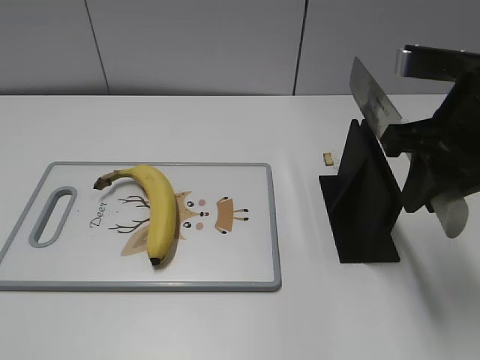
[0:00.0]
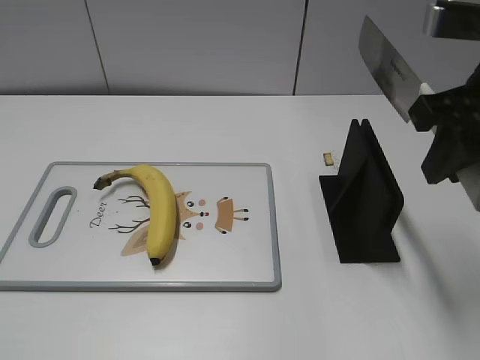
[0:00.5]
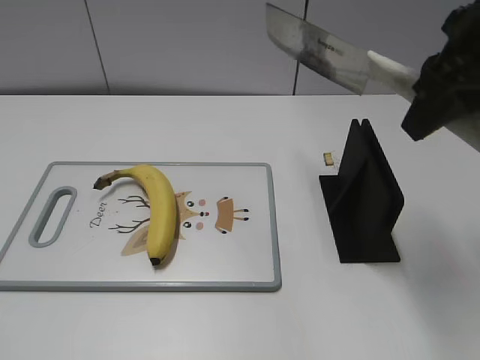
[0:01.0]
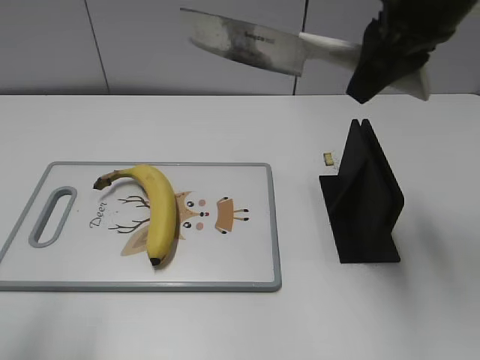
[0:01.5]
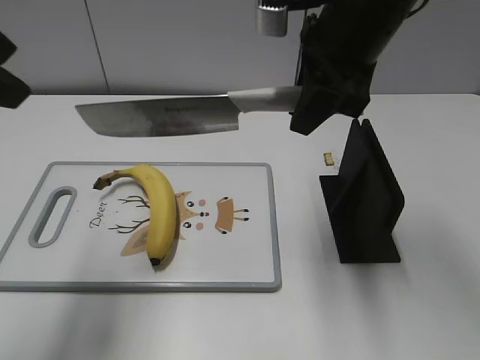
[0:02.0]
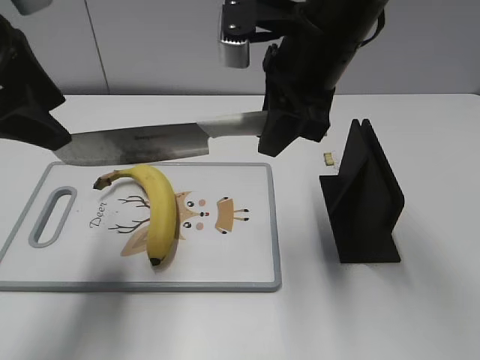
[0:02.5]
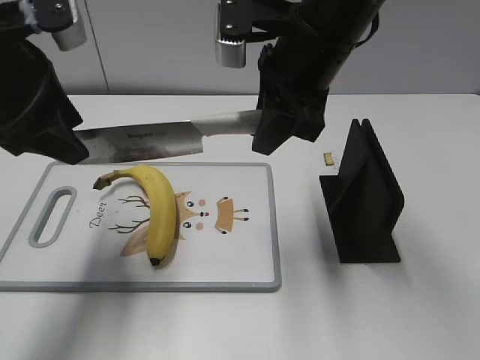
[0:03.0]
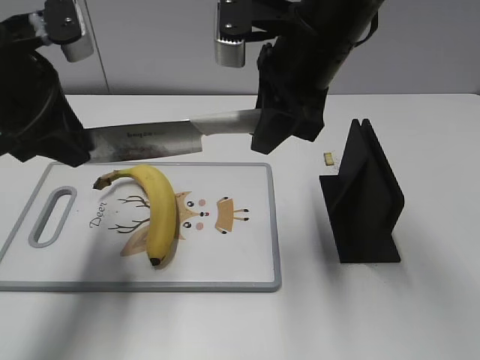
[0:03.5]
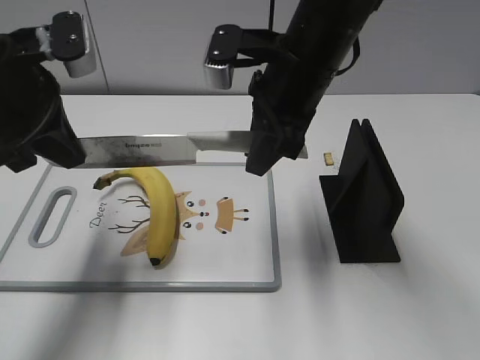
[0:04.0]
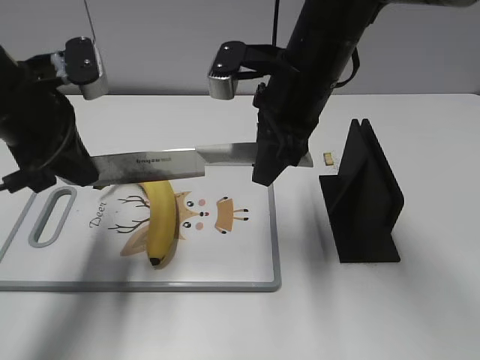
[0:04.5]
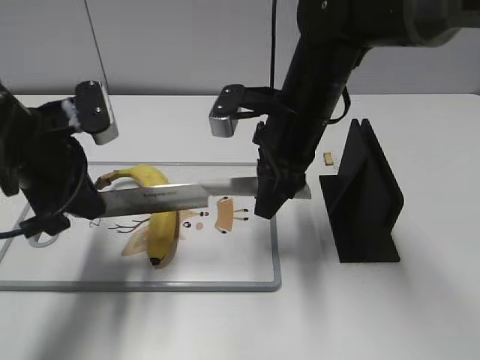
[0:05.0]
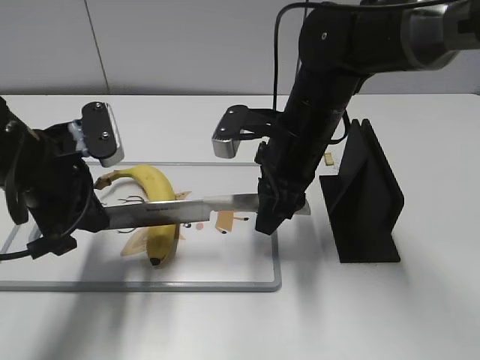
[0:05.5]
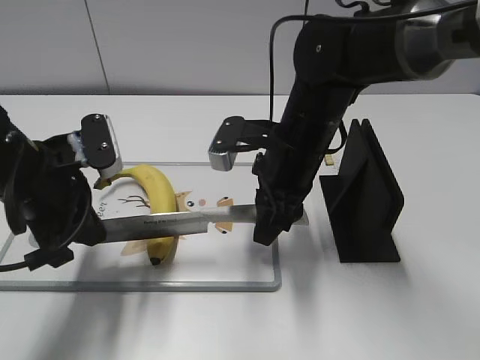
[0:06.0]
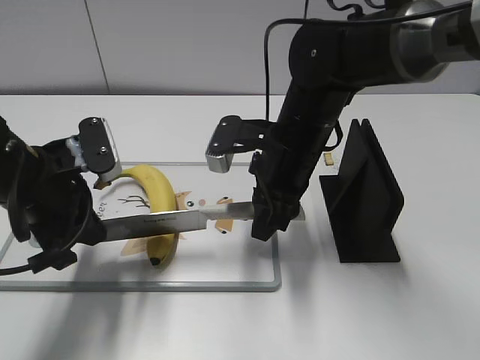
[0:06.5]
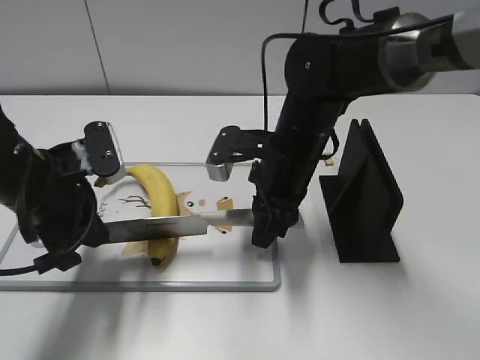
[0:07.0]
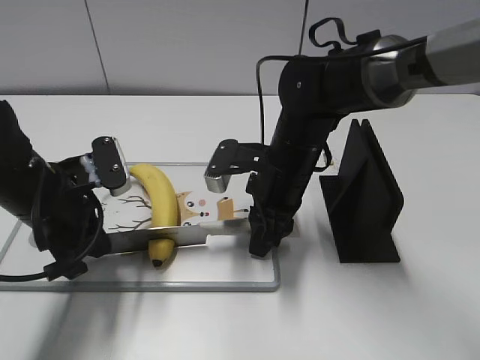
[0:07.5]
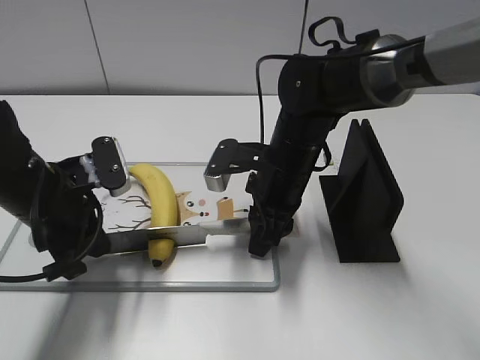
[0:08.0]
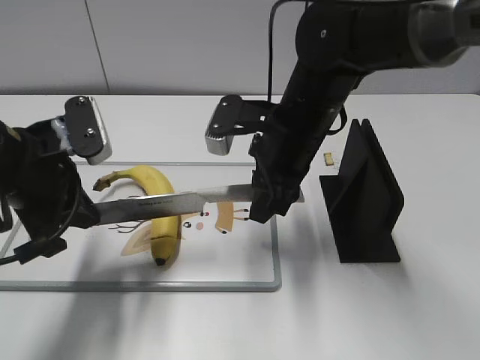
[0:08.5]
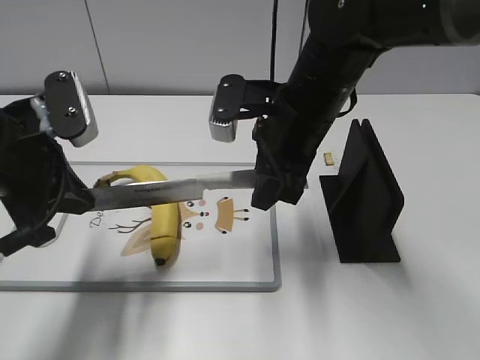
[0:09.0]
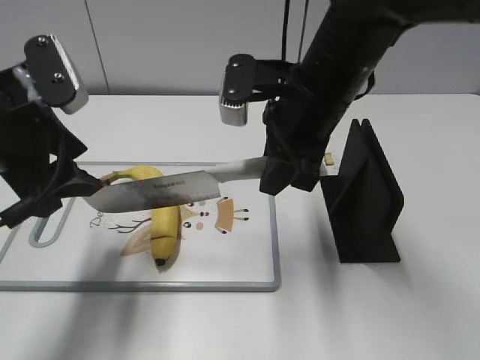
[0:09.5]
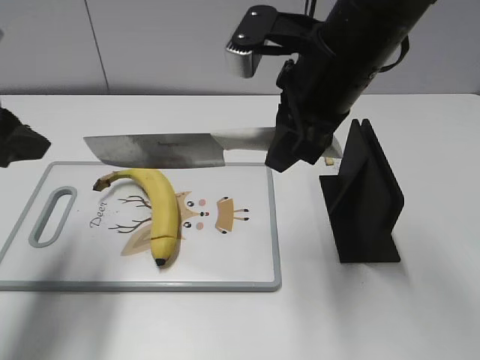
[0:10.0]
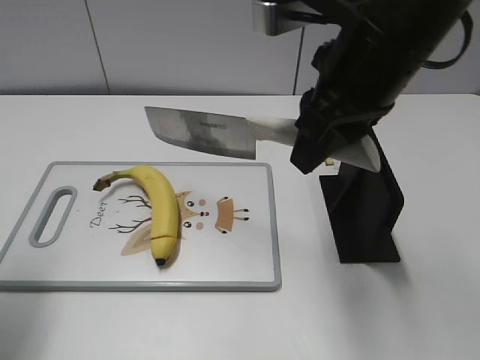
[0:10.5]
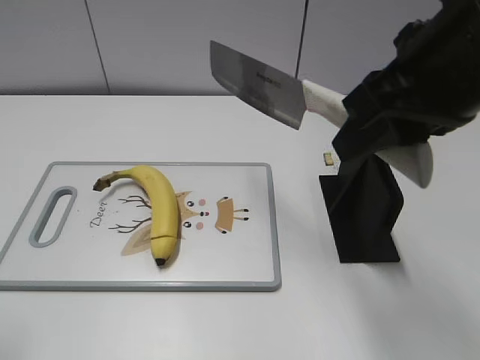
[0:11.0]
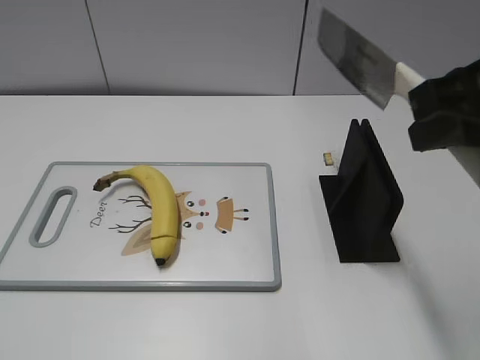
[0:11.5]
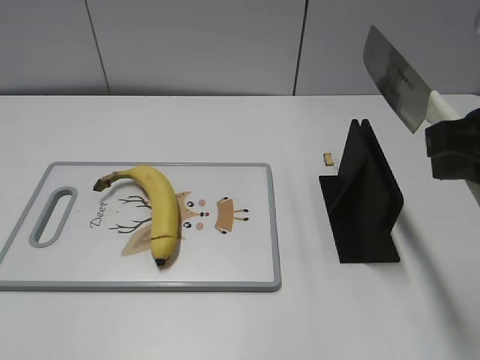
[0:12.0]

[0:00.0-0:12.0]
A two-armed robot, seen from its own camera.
Task of the whole recording: cut banana.
Step, 0:01.0 to 0:06.5: Hold the blade with your left hand.
Step, 0:07.0 to 0:11.0: Cut the banana with your right hand.
0:00.0 to 0:02.0: The right gripper goes roughly 10 cm to the left and forward. The left gripper shifts approximately 25 cm forward and upward.
0:02.0 to 0:04.0: The right gripper heads downward, covering roughly 5 cm. The left gripper moves downward and forward, approximately 10 cm, and closes up.
0:04.0 to 0:06.0: Both grippers move downward, about 10 cm.
0:08.0 to 0:10.0: The left gripper heads upward and to the left, covering roughly 15 cm, and opens, while the right gripper travels upward by some 15 cm.
0:10.0 to 0:12.0: The right gripper heads to the right and backward, covering about 15 cm, while the left gripper heads backward, covering roughly 25 cm.

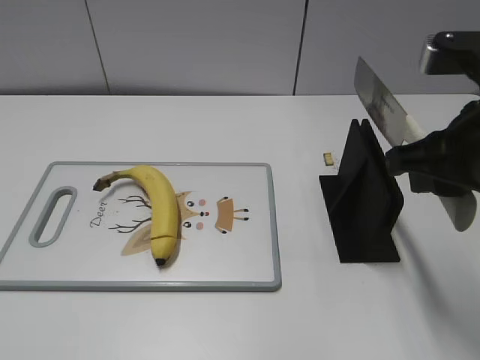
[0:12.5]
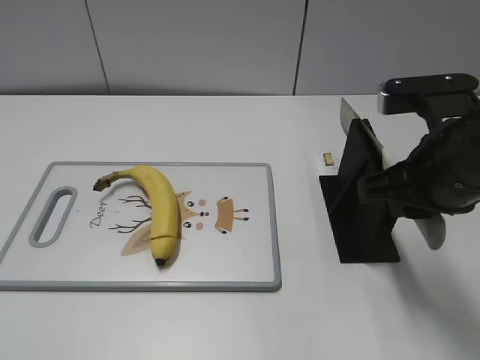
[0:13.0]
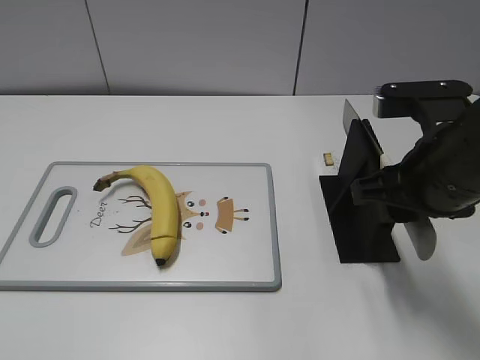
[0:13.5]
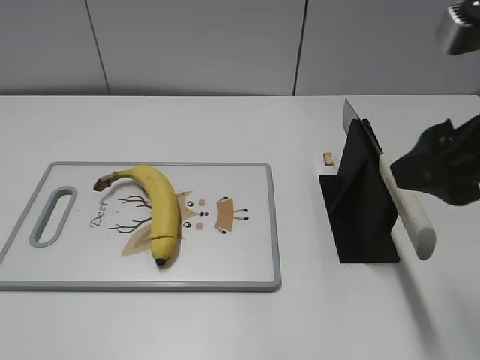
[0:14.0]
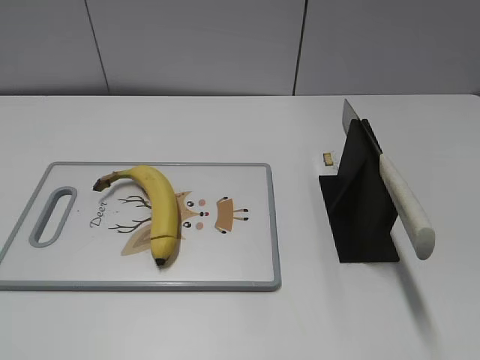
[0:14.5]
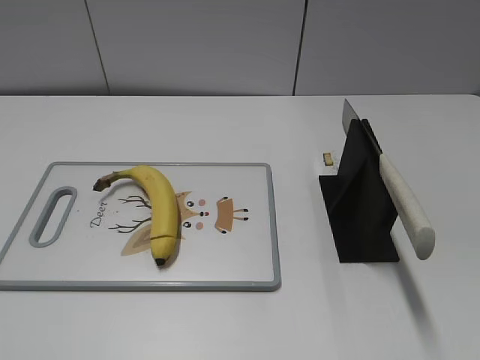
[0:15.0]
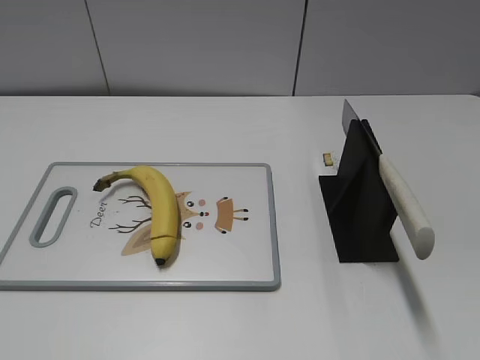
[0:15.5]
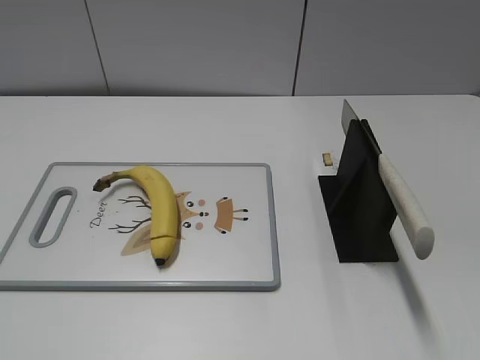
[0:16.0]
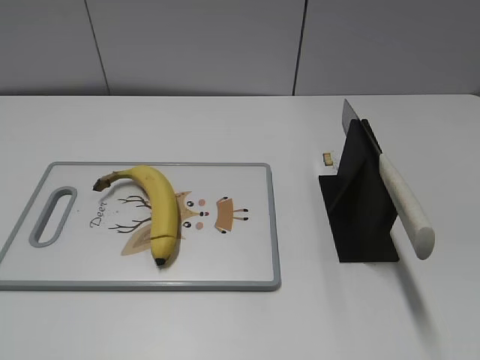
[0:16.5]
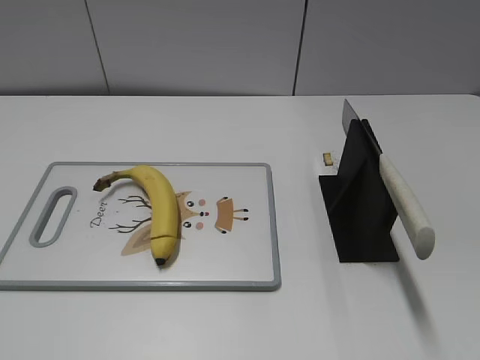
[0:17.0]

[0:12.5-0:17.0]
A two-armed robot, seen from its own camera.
Task of the whole recording: cut banana.
Step, 0:13.0 to 0:17.0: Place the knife on the storage rack with your right hand.
0:12.5 to 0:14.5: The right gripper is displaced backward and to the right by approximately 15 cm, and opens its fingers.
